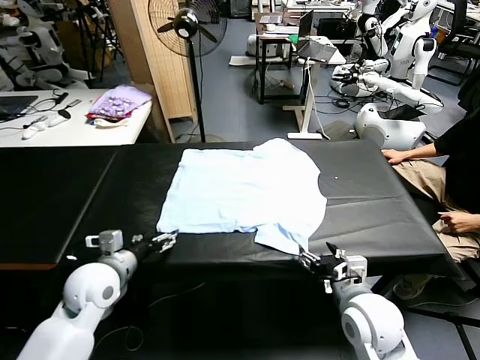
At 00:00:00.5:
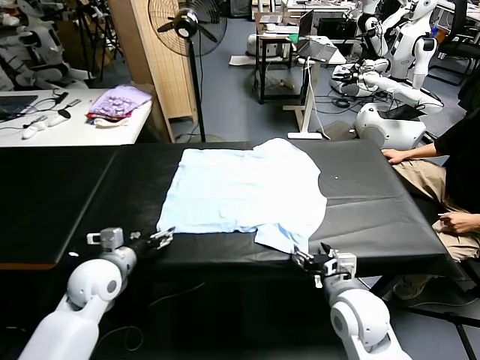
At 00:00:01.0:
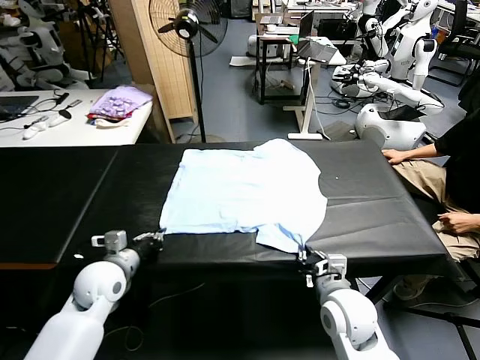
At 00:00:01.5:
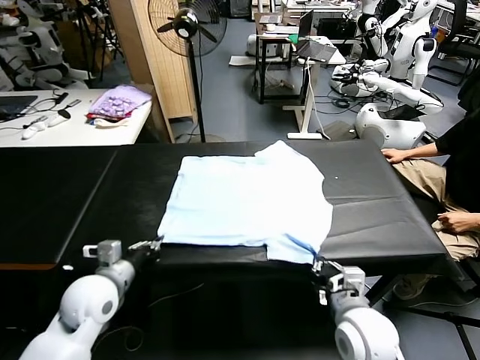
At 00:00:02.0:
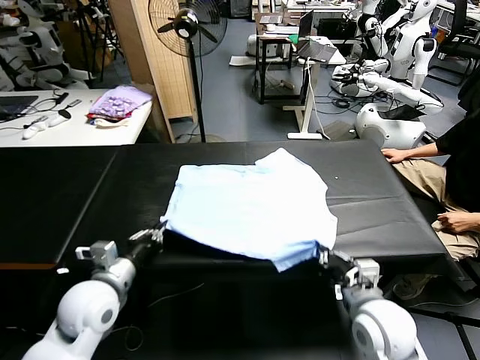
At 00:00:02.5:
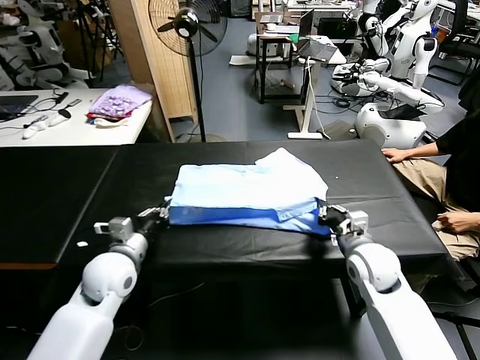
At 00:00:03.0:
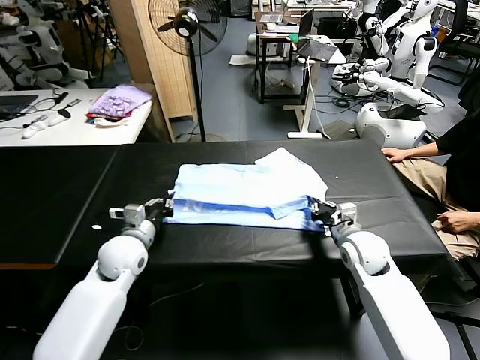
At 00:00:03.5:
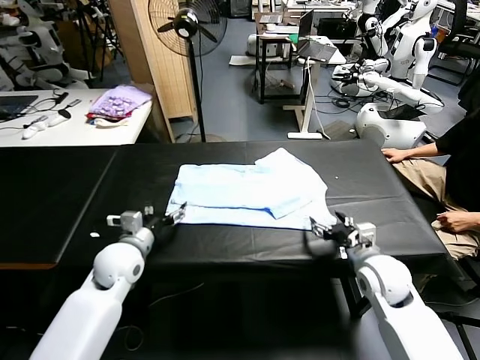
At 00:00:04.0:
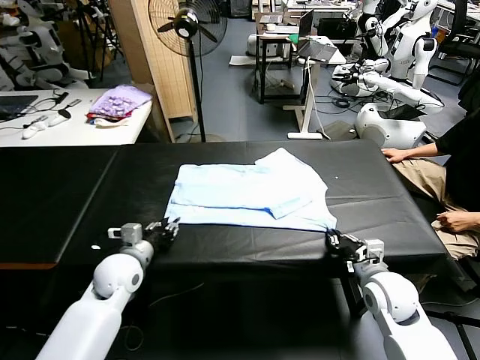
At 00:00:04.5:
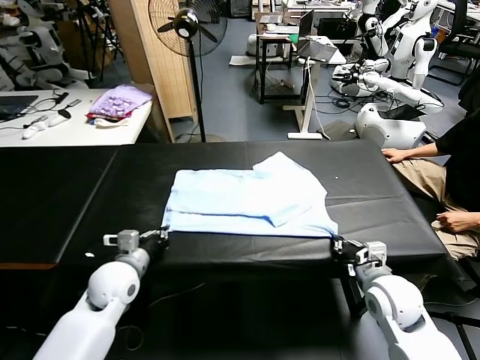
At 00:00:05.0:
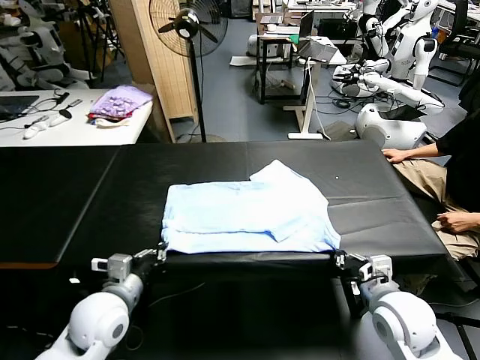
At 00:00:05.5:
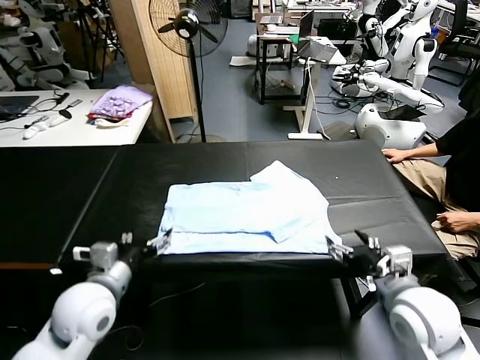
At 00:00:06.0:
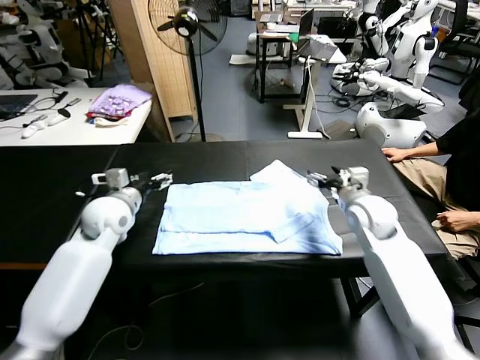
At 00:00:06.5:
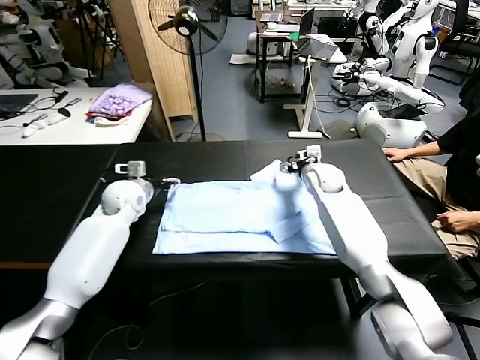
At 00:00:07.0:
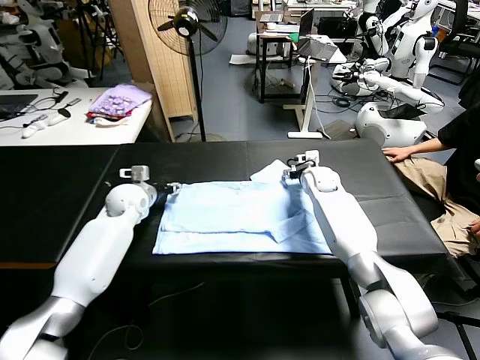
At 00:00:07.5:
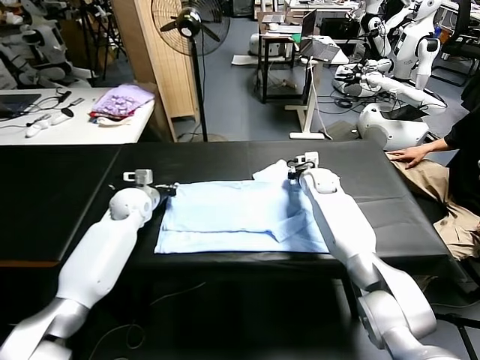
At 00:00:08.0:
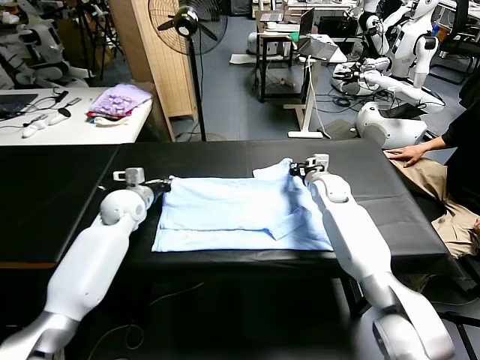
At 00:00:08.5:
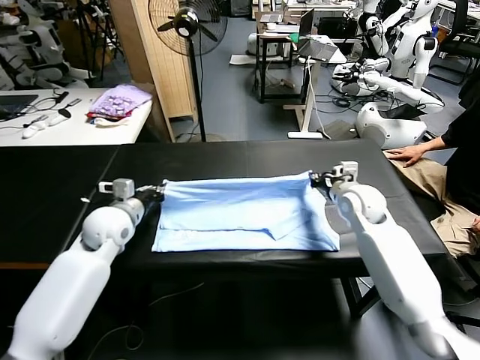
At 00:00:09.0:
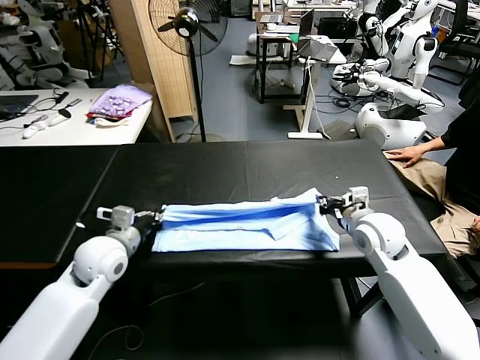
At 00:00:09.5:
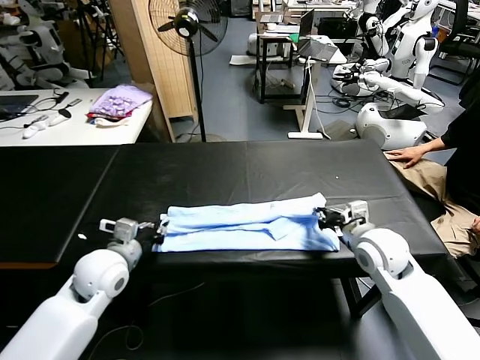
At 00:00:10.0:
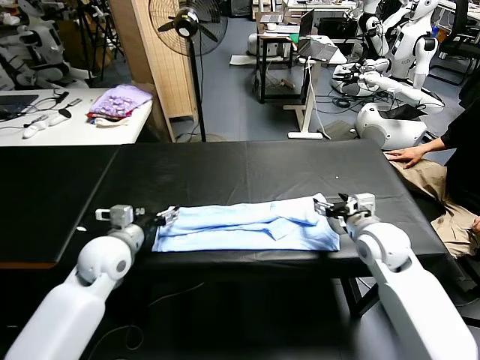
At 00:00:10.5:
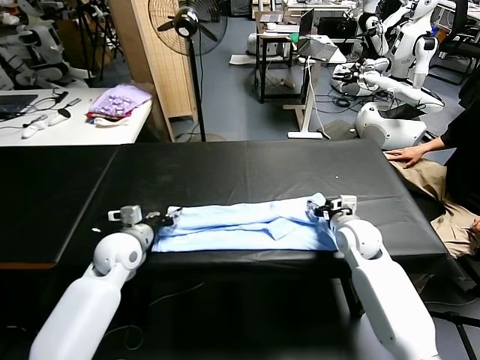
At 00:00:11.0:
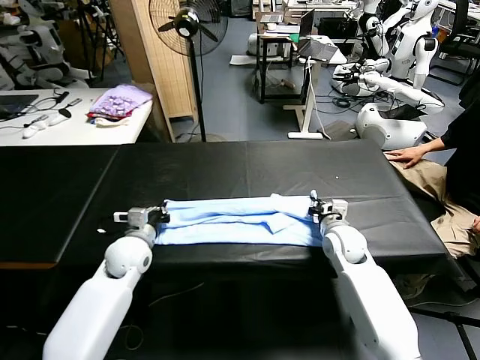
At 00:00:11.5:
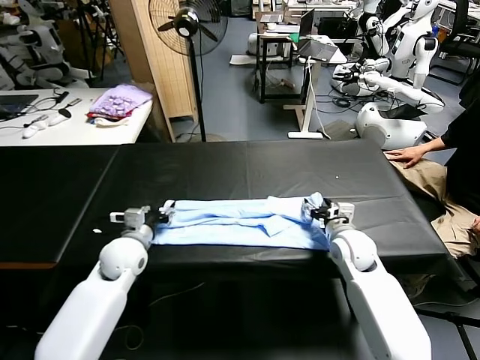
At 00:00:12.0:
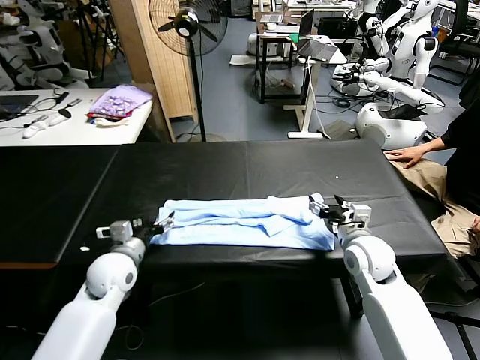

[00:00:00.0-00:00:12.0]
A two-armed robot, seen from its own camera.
Task of the whole recording: fold and organize the clothes.
Step, 00:00:00.0 to 00:00:01.0: use both grippers simultaneously to clamp the lower edge of the clothing fabric.
Step, 00:00:01.5 to 00:00:03.0: use both grippers to drag the lower edge of the fabric forward and fold it over the upper edge.
Step, 00:00:03.5 to 00:00:05.0: Drag the clothes downward with both gripper.
Step, 00:00:05.5 to 00:00:07.5: use both grippers simultaneously to clamp the upper edge of the clothing fabric.
Step, 00:00:08.0 to 00:00:09.5: use both grippers to drag the upper edge of the fabric backward and fold it over the lower edge.
00:00:02.0 to 00:00:04.0: The right gripper moves about 10 cm forward and comes back, and opens and closes again; the left gripper shifts roughly 10 cm forward and downward, and opens, then closes again.
00:00:04.0 to 00:00:06.0: Both grippers move forward and upward, about 20 cm. The left gripper opens up; the right gripper opens up.
00:00:06.0 to 00:00:08.0: The left gripper closes. Meanwhile the right gripper goes some 5 cm forward, and closes.
00:00:08.0 to 00:00:10.0: The two grippers go about 15 cm backward. The left gripper opens its fingers, while the right gripper opens up.
00:00:10.0 to 00:00:12.0: The left gripper travels downward by about 5 cm, and closes and opens again, while the right gripper closes, then reopens.

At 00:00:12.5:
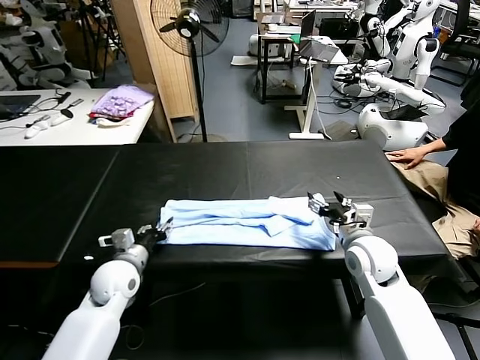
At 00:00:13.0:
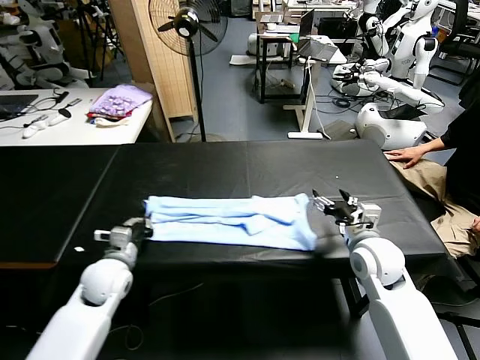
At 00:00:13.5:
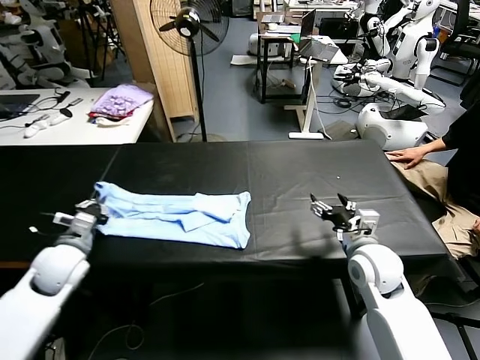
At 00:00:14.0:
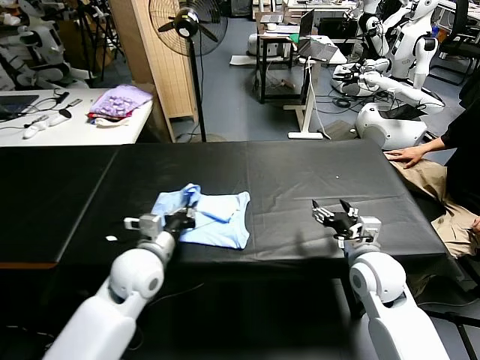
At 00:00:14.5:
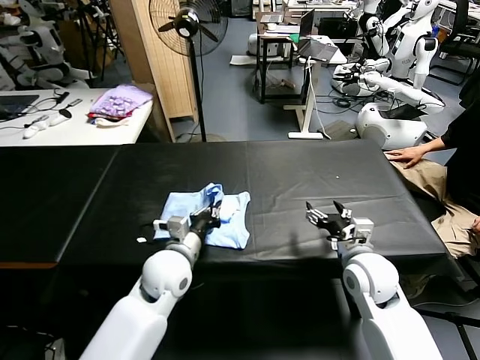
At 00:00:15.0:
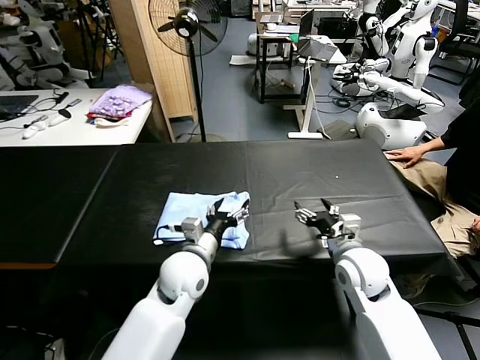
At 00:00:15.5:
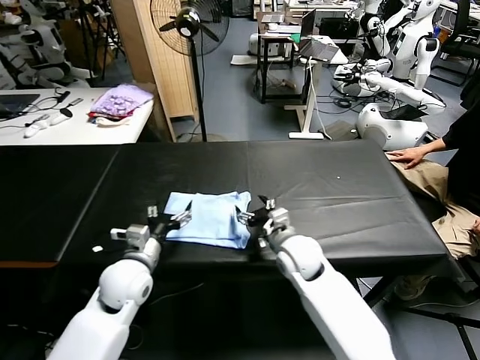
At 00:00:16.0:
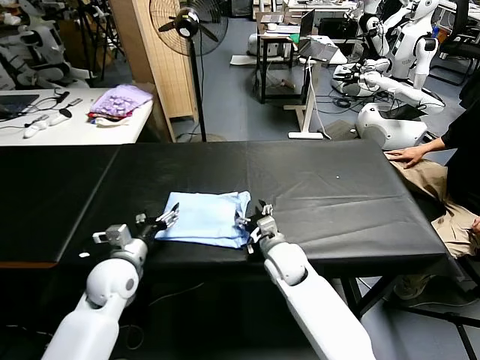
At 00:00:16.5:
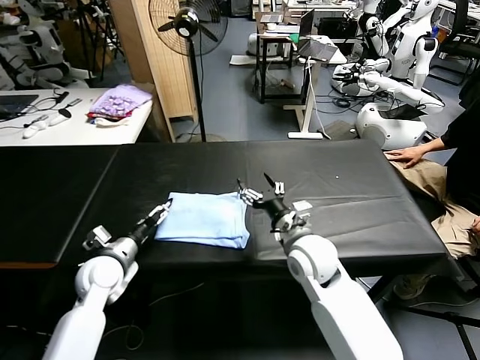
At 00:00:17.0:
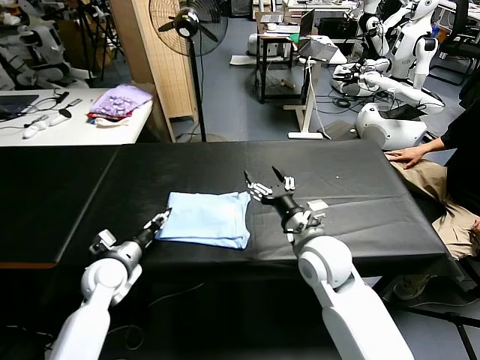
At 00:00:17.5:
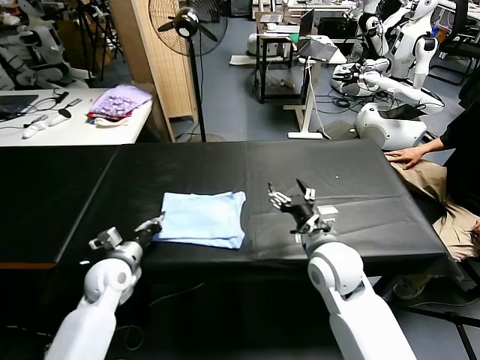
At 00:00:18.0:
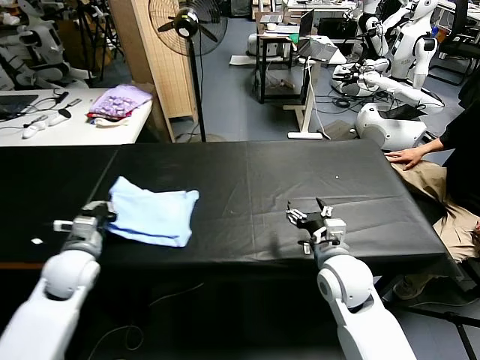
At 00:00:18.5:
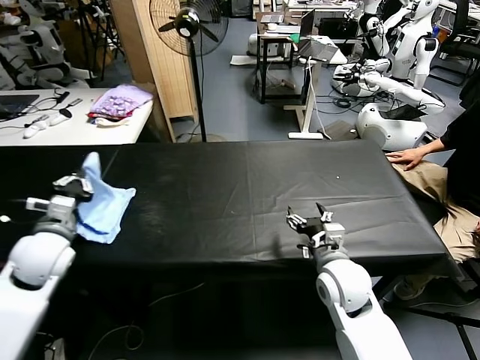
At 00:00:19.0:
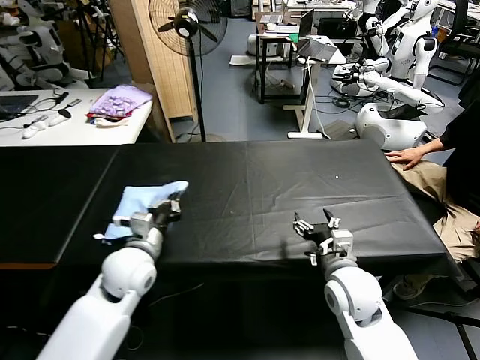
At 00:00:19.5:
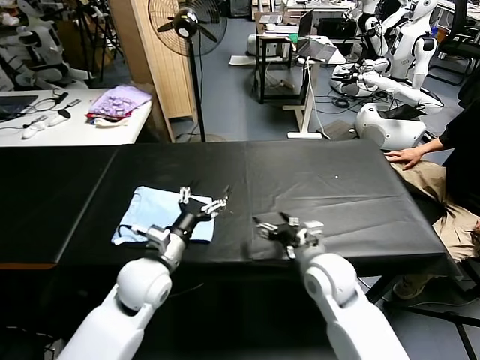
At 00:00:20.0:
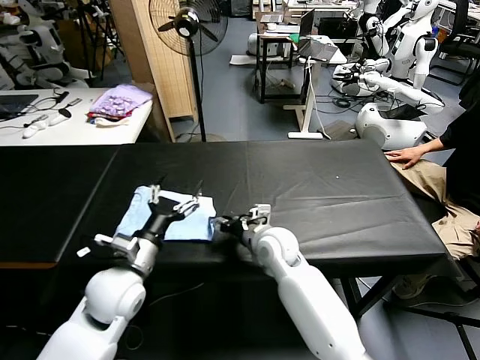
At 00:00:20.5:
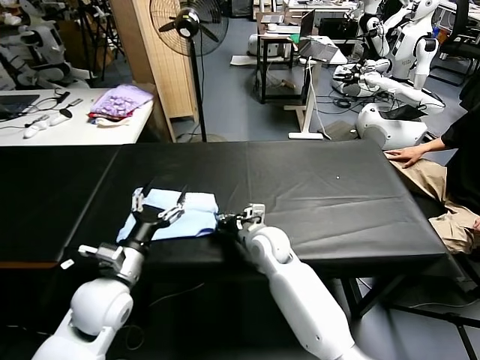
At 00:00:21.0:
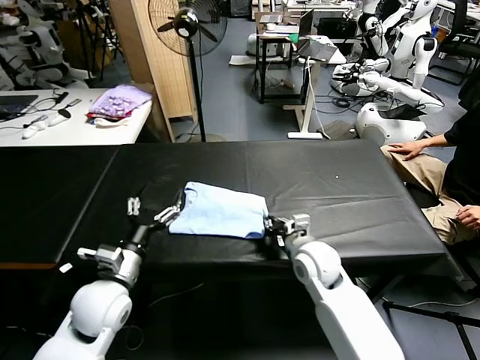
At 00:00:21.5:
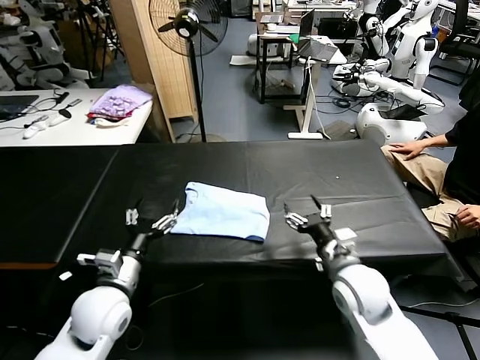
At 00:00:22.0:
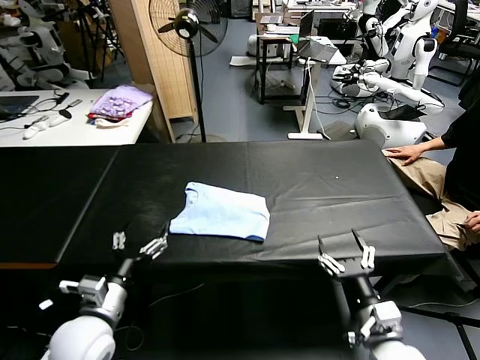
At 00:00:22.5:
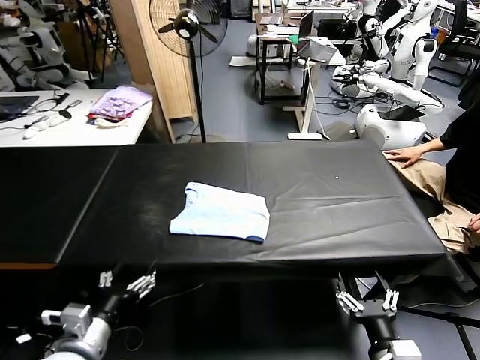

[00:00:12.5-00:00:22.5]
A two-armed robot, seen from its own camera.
Task of the whole recording: fold and organize the clothes.
Step, 00:00:13.0 to 00:00:14.5: use the left gripper to drag the left edge of the fabric to the left and folds it over the right edge.
Step, 00:00:15.0 to 00:00:19.0: Flip the folded clothes over with left gripper.
Step, 00:00:19.5 to 00:00:21.0: Drag the clothes to the center of the table.
00:00:12.5 to 00:00:14.5: The left gripper shifts some 15 cm to the right, and closes.
00:00:14.5 to 00:00:16.5: Both grippers travel together to the left, some 15 cm. The left gripper opens up.
00:00:16.5 to 00:00:18.5: The right gripper shifts about 5 cm to the right. The left gripper travels upward and to the left by about 15 cm, and closes up.
00:00:18.5 to 00:00:20.5: The left gripper goes some 15 cm to the right and backward, and opens, while the right gripper travels to the left and forward by about 20 cm, and closes.
00:00:20.5 to 00:00:22.5: The left gripper travels backward by approximately 10 cm. Meanwhile the right gripper heads backward and to the right, covering roughly 40 cm, and opens up.
